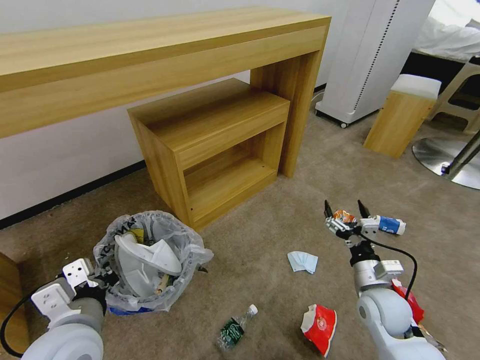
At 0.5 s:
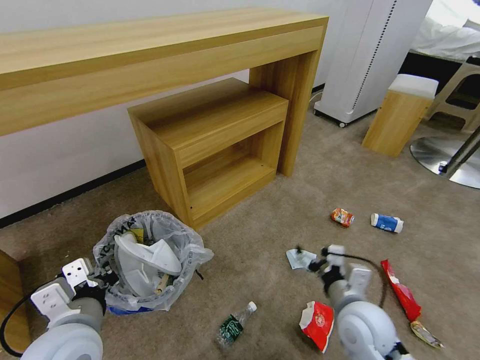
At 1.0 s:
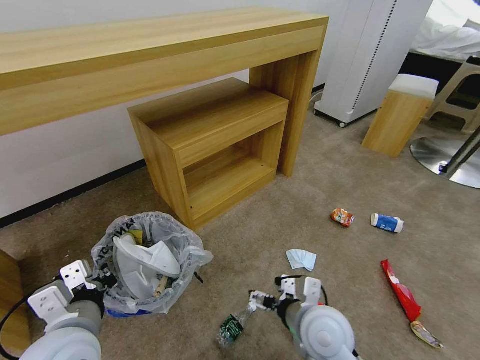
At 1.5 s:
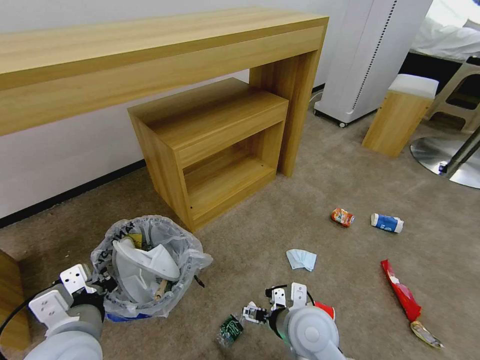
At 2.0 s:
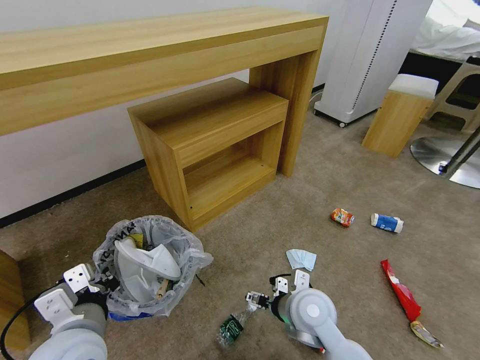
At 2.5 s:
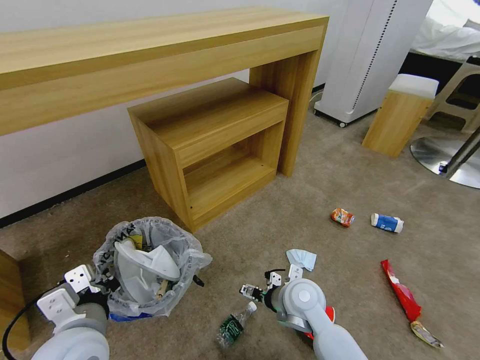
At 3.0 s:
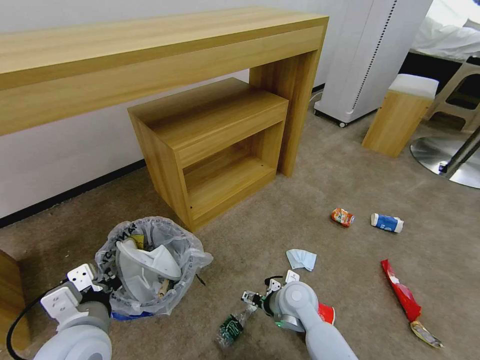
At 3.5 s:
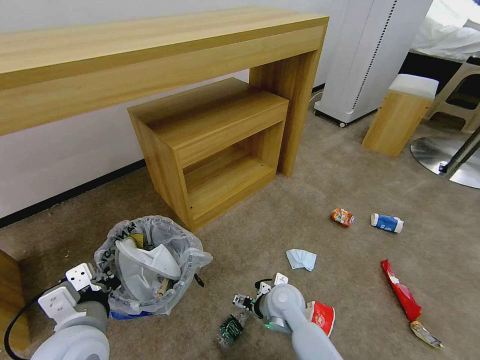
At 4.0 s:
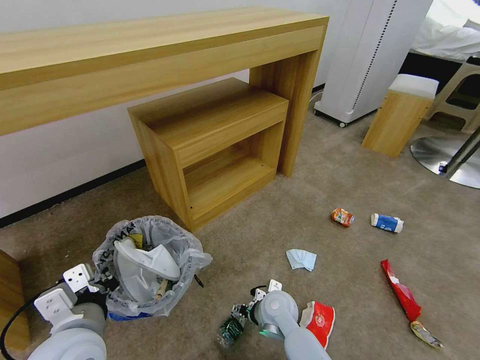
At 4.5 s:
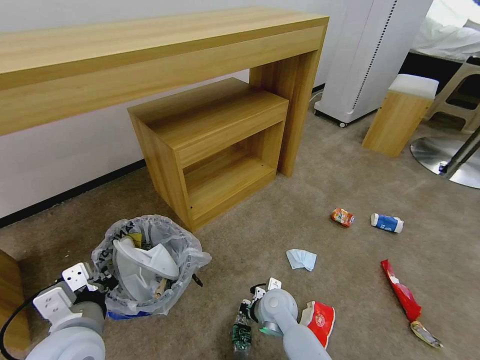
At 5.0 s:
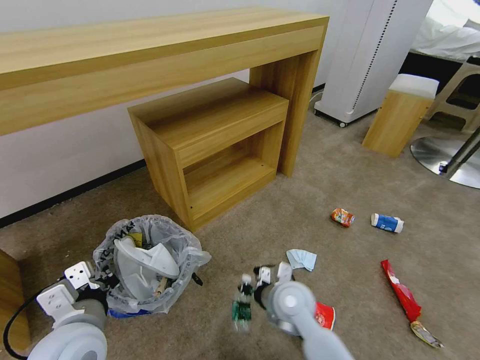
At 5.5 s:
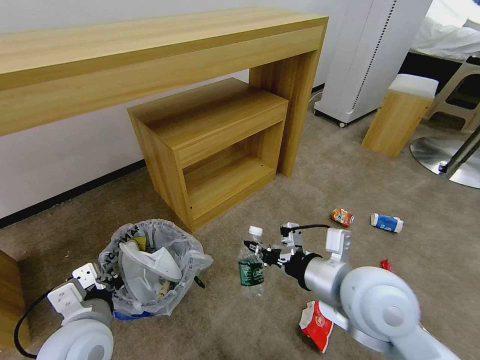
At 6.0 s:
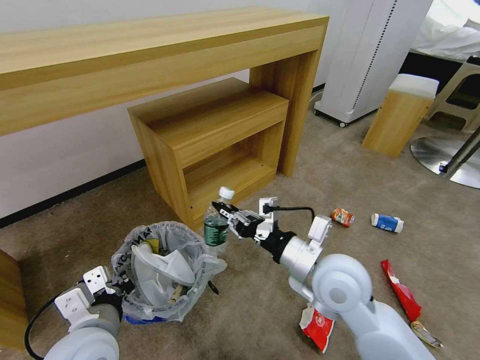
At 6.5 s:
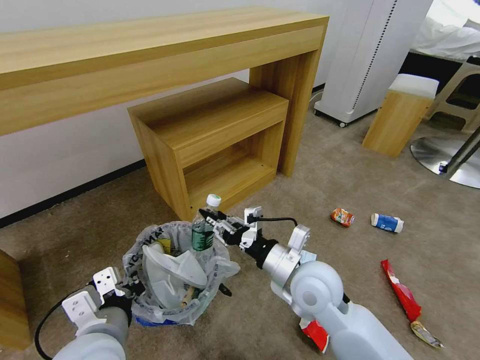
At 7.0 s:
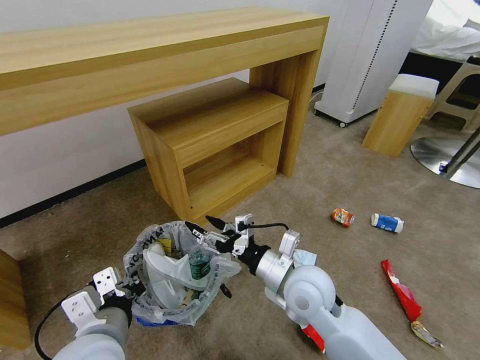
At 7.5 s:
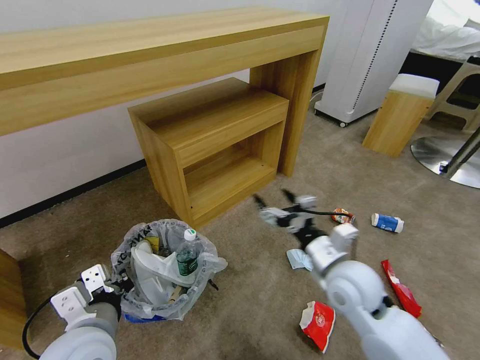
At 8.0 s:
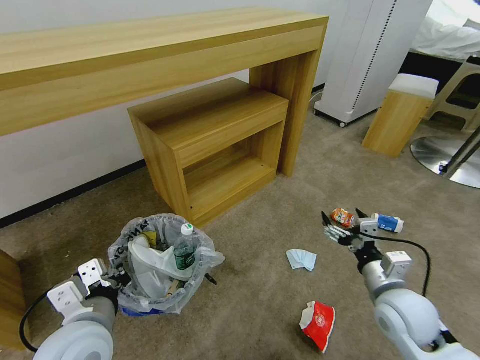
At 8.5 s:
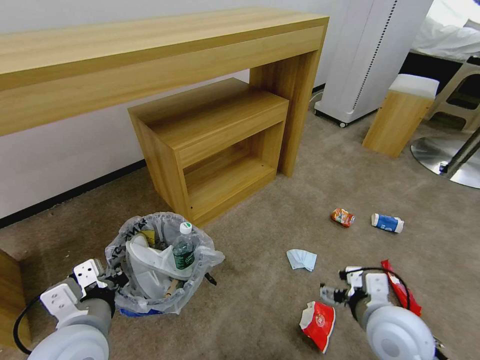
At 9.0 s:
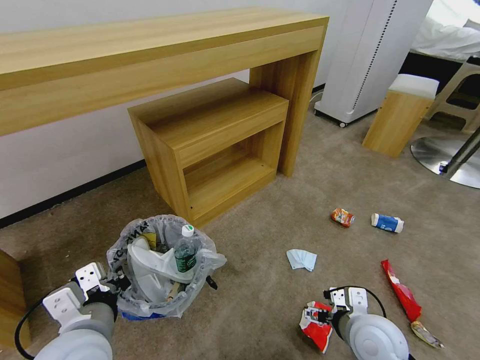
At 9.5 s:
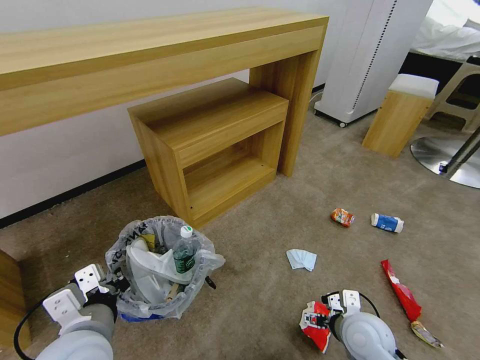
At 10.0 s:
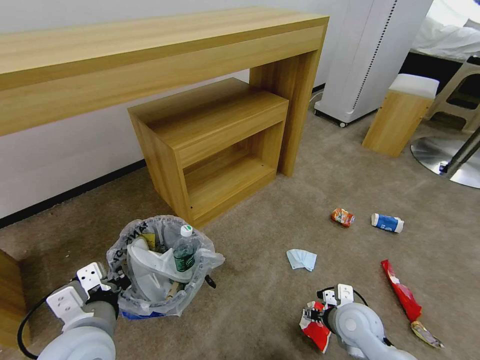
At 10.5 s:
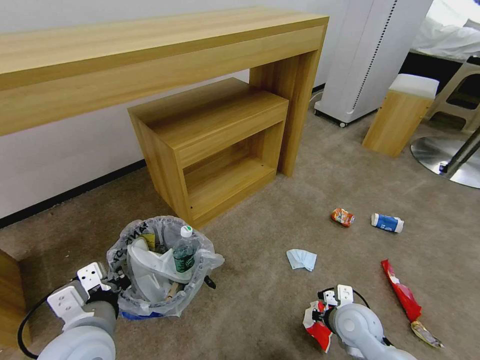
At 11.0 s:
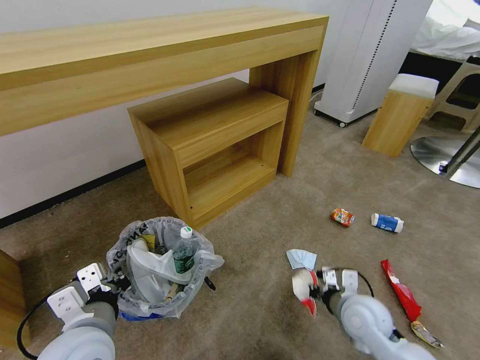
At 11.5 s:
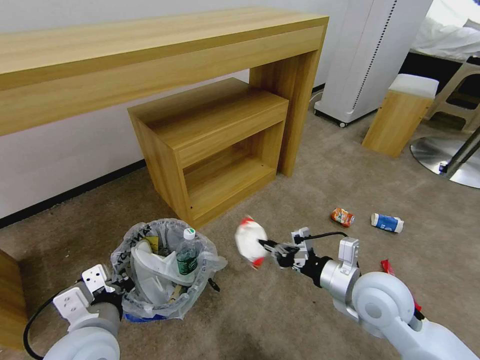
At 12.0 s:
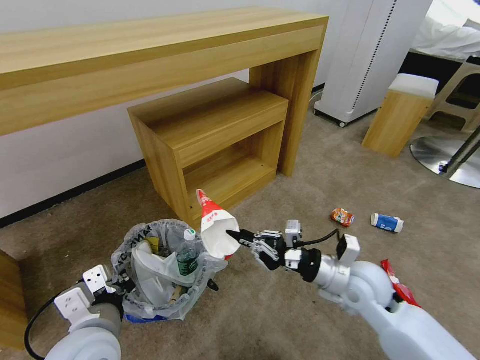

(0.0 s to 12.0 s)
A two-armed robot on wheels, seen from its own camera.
Task of the whole recording: Pick up the trash bin and place the garbage on the floor into it.
0.0 s - 2.0 s: The right gripper heads to the left, covering some 15 cm.
2.0 s - 4.0 s: The right gripper is displaced downward and to the left by about 10 cm.
4.0 s - 6.0 s: The right gripper goes some 25 cm upward, and closes up.
6.0 s - 8.0 s: The right gripper shifts about 15 cm to the right and downward, and opens up.
8.0 s - 10.0 s: The right gripper travels downward by approximately 10 cm.
10.0 s - 12.0 s: The right gripper travels upward by roughly 10 cm, and closes its fingers.

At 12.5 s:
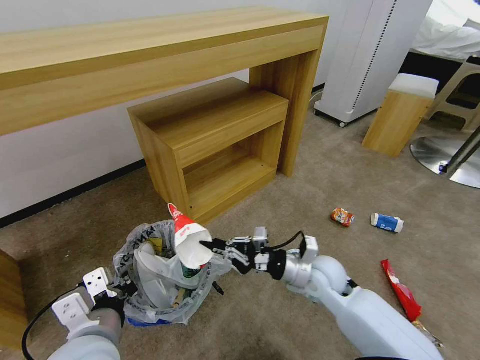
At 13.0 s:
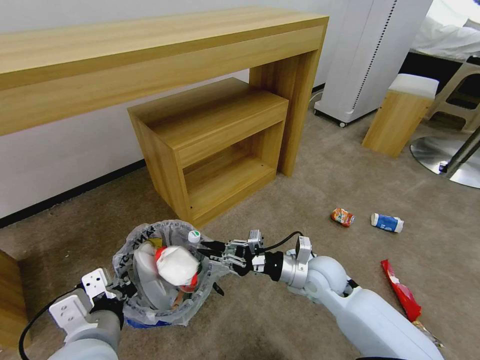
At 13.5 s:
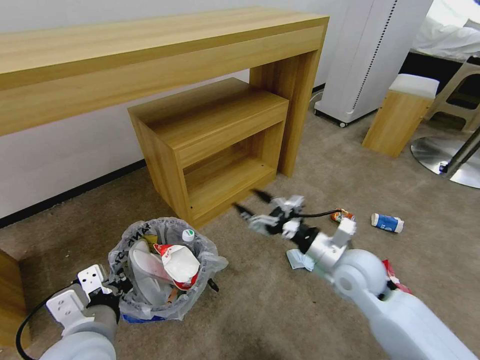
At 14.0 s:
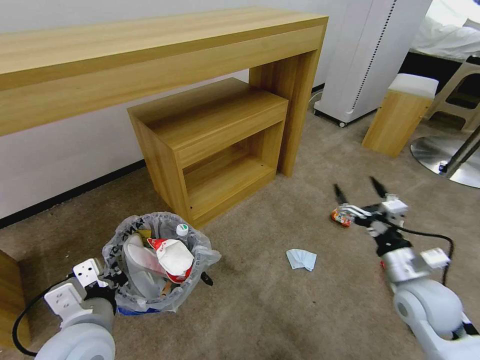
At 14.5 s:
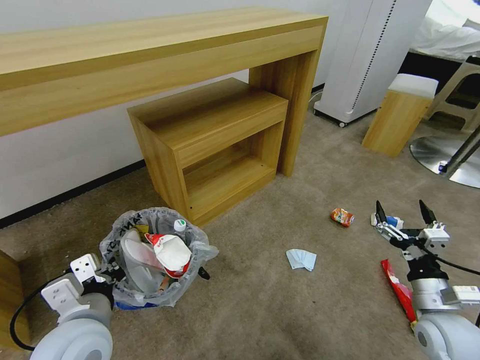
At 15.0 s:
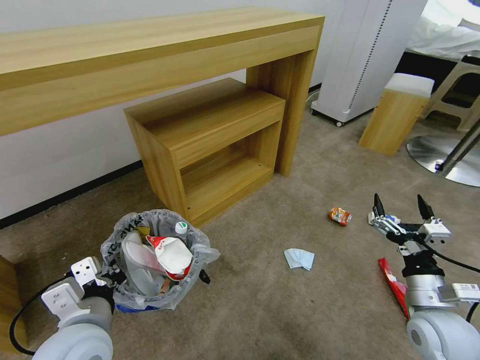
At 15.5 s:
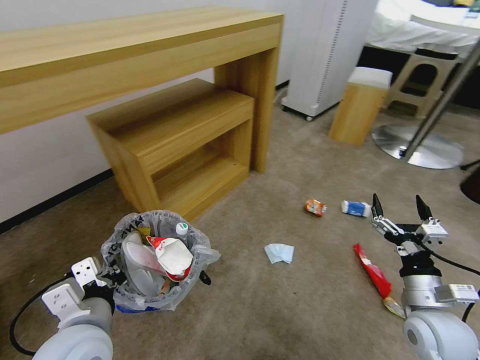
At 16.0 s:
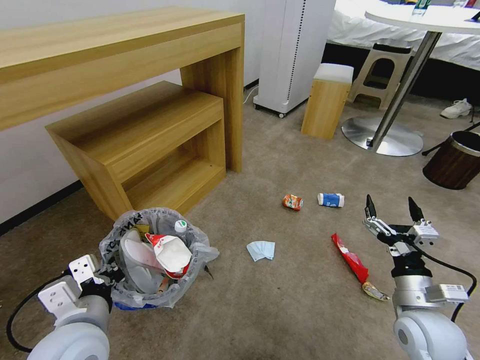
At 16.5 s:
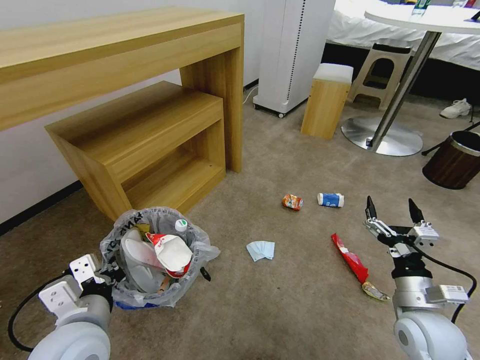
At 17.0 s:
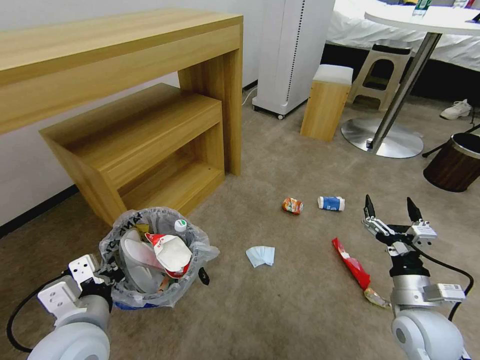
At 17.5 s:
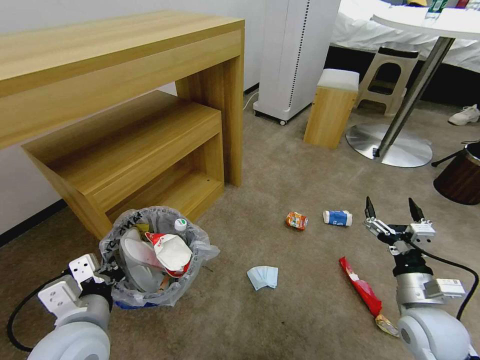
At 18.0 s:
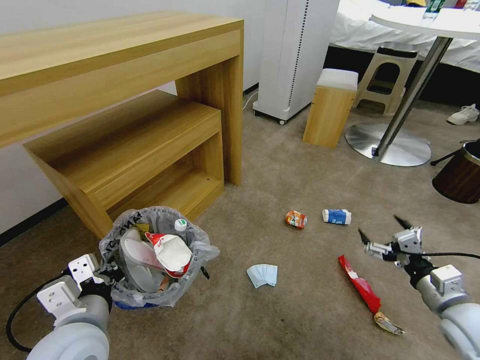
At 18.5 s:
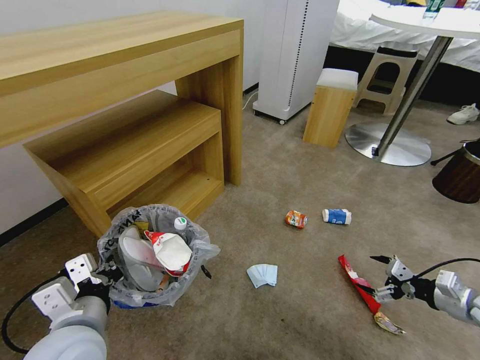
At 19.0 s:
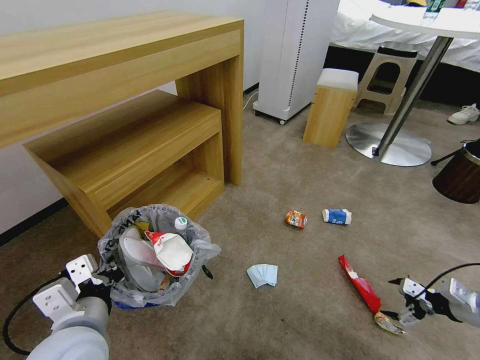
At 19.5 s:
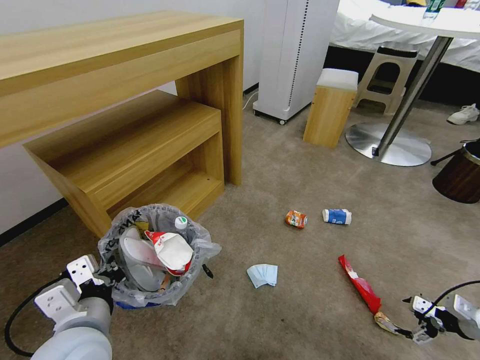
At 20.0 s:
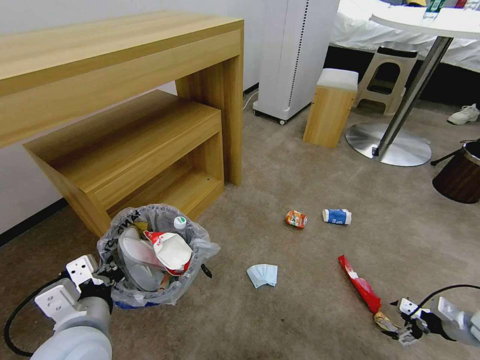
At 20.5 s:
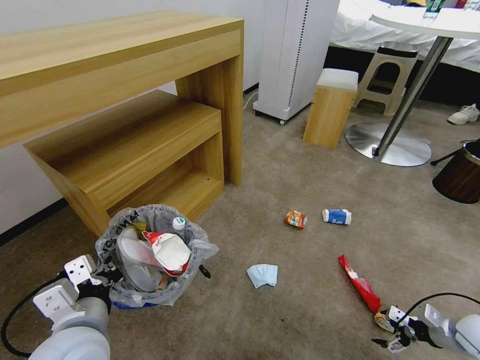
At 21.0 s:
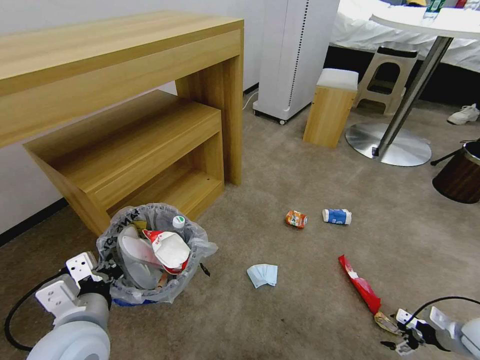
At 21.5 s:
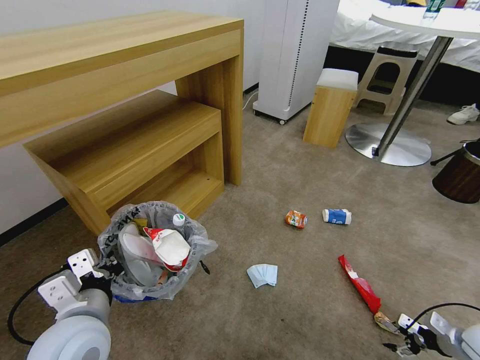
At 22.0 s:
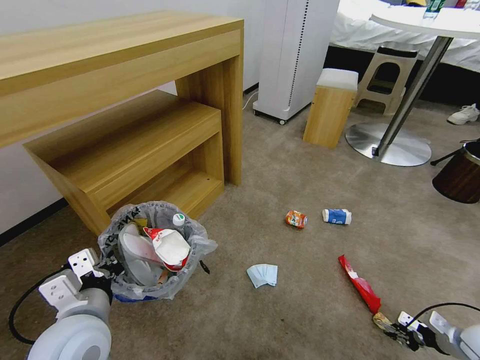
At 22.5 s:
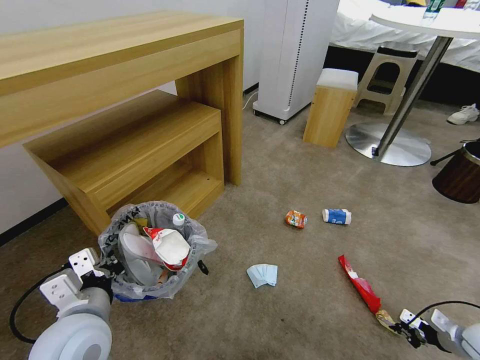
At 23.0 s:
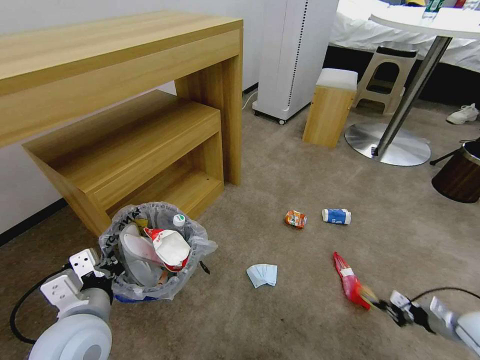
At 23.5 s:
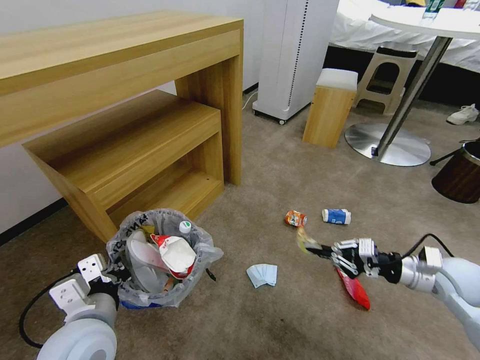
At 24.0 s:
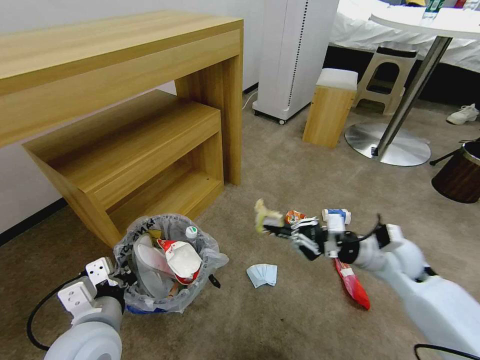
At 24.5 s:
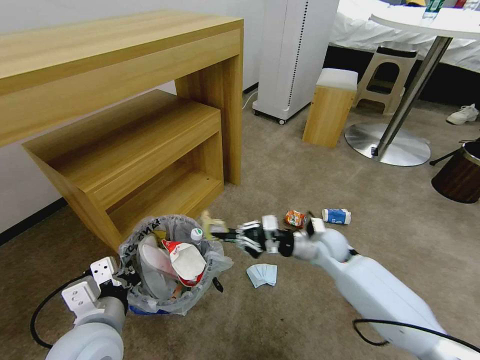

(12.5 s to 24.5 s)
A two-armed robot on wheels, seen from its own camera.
Task of the whole recording: Pick up the trash bin and place the garbage on the floor into it.
12.5 s - 14.5 s: The right gripper goes about 25 cm to the right and backward, and opens.
16.5 s - 18.5 s: The right gripper shifts approximately 15 cm to the right.
18.5 s - 20.5 s: The right gripper shifts approximately 10 cm downward.
20.5 s - 22.5 s: The right gripper shifts by roughly 5 cm, and closes.
22.5 s - 24.5 s: The right gripper is displaced to the left and forward by approximately 40 cm.

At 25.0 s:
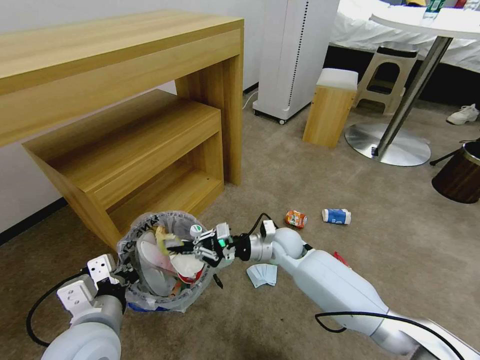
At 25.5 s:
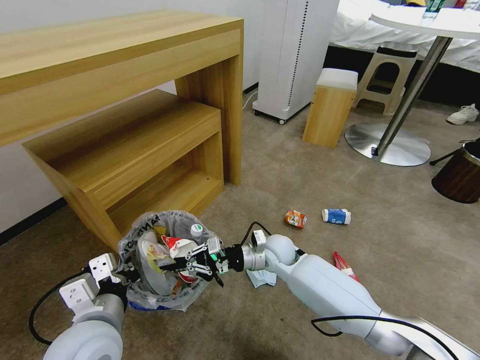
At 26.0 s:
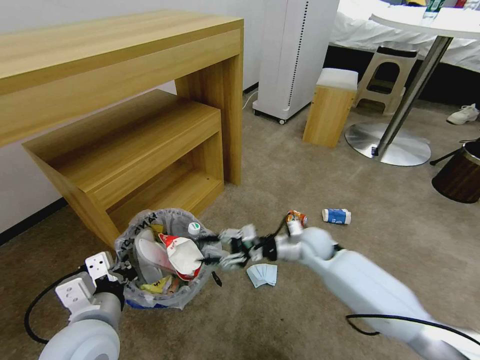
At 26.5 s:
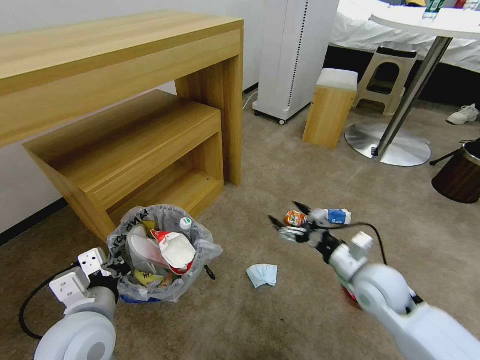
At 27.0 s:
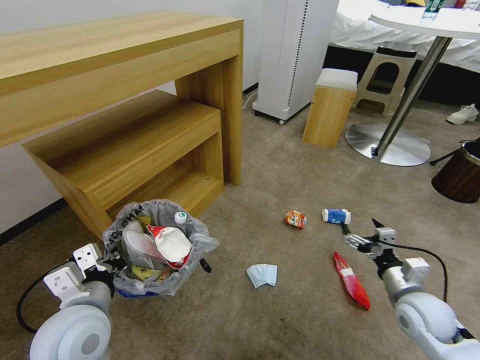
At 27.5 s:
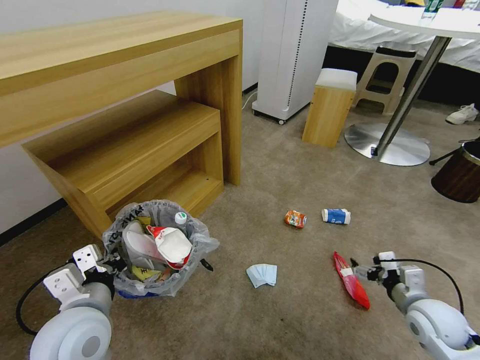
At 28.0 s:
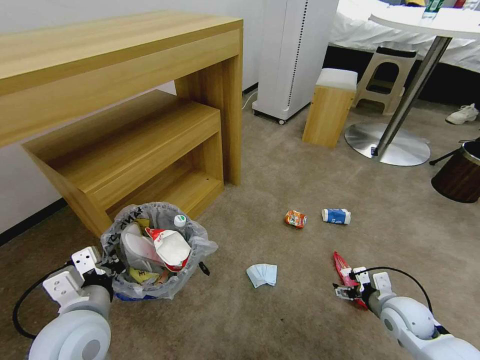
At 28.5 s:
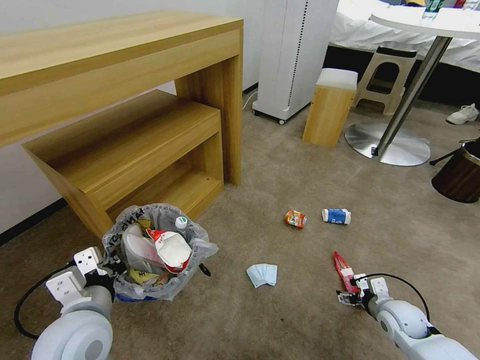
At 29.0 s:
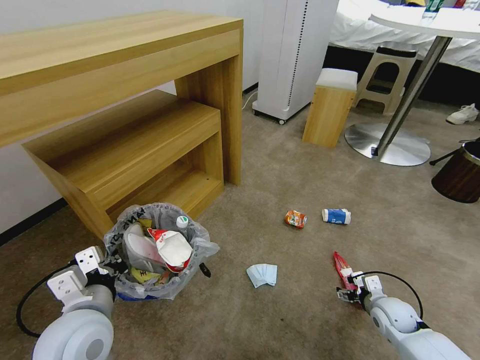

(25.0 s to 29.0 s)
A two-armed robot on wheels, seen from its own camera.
Task of the whole recording: Pick up the trash bin and place the garbage on the floor into it.
25.0 s - 27.0 s: The right gripper travels to the right and backward by roughly 30 cm, and opens its fingers.
27.0 s - 29.0 s: The right gripper heads downward, covering approximately 10 cm.
